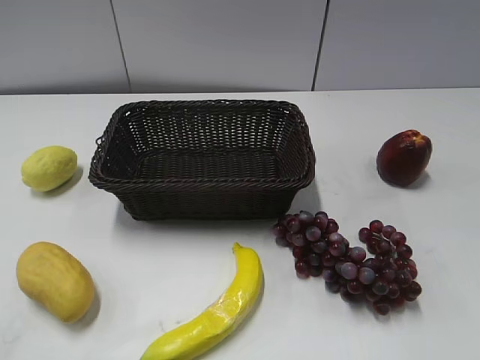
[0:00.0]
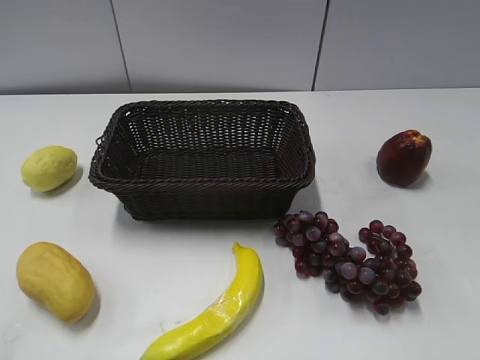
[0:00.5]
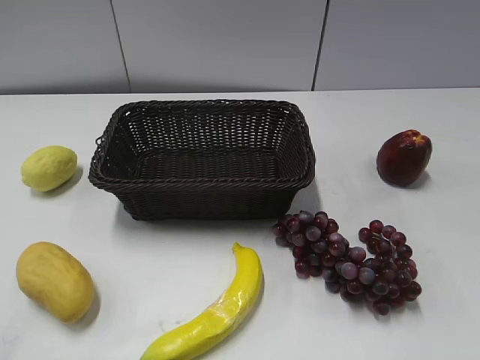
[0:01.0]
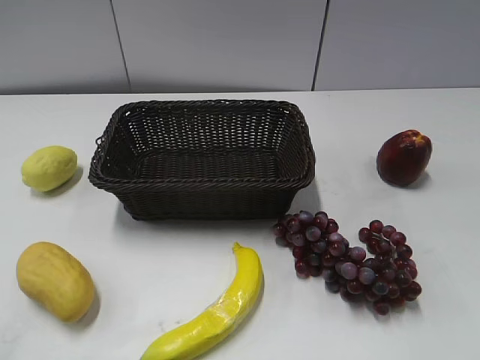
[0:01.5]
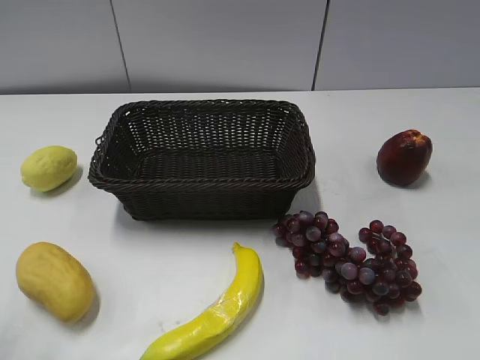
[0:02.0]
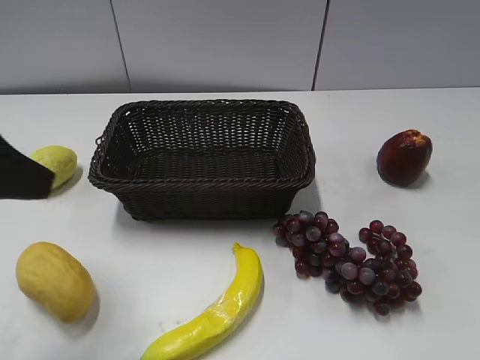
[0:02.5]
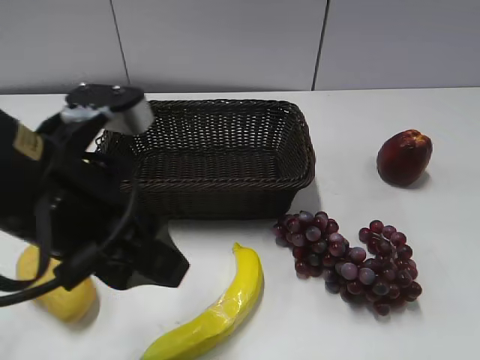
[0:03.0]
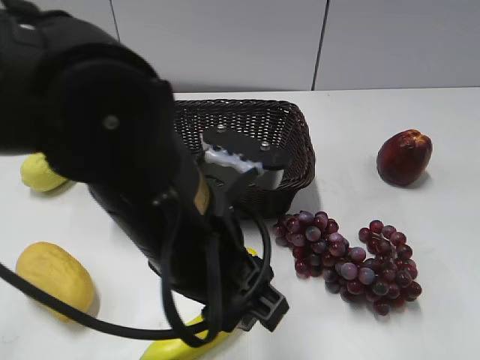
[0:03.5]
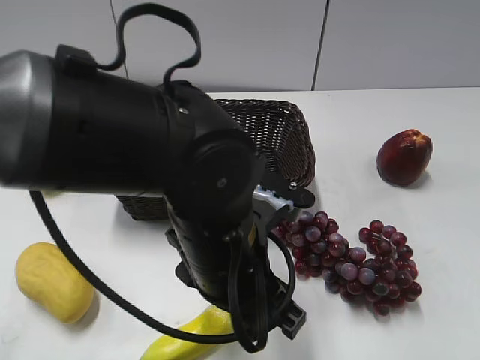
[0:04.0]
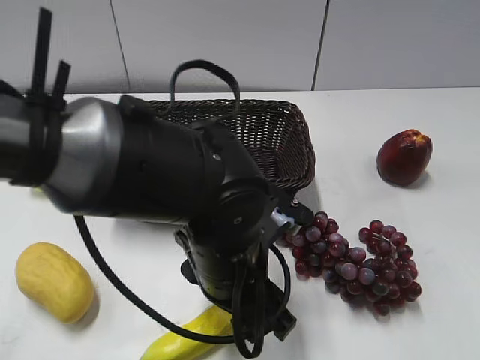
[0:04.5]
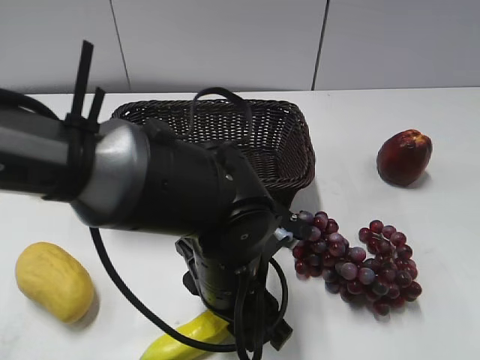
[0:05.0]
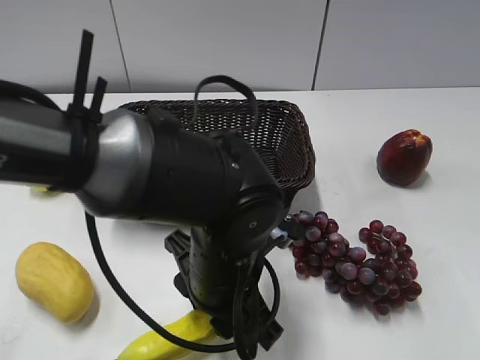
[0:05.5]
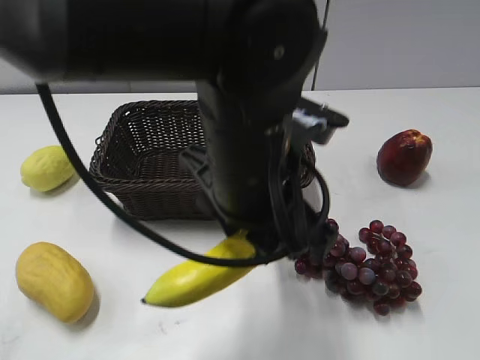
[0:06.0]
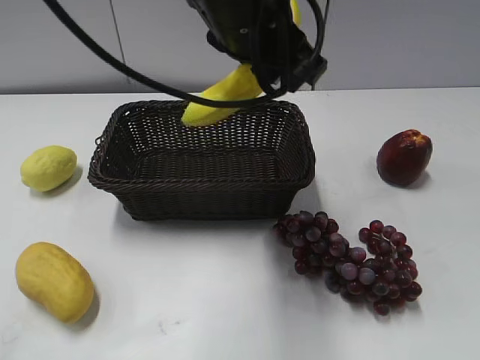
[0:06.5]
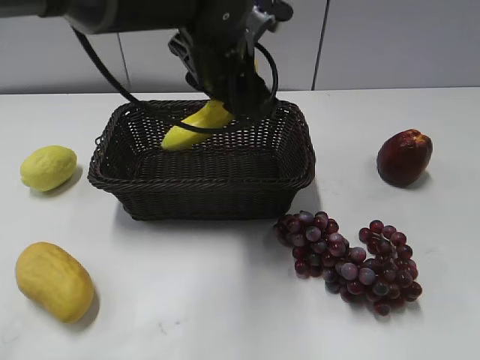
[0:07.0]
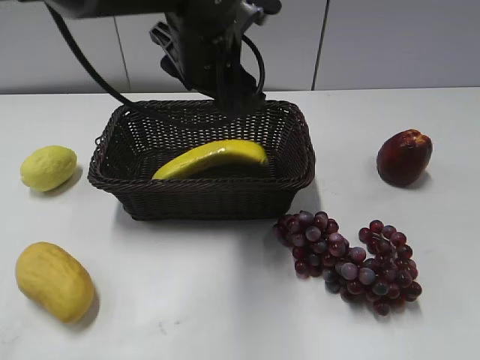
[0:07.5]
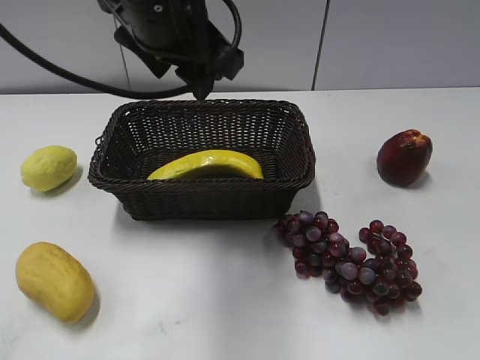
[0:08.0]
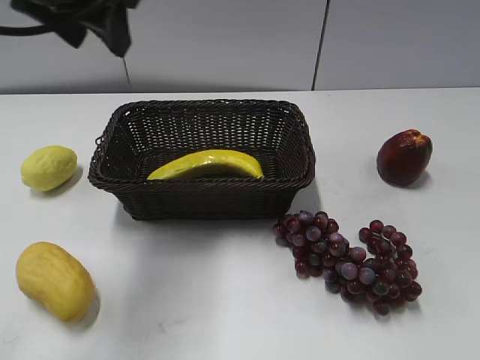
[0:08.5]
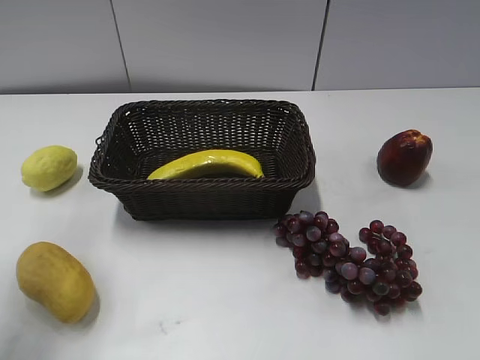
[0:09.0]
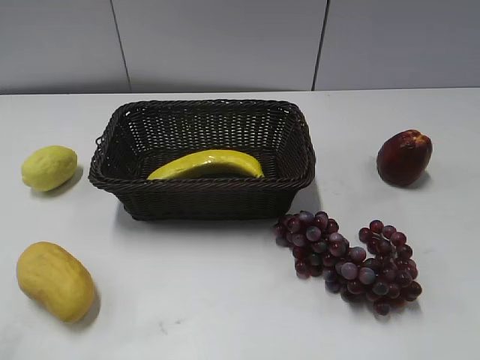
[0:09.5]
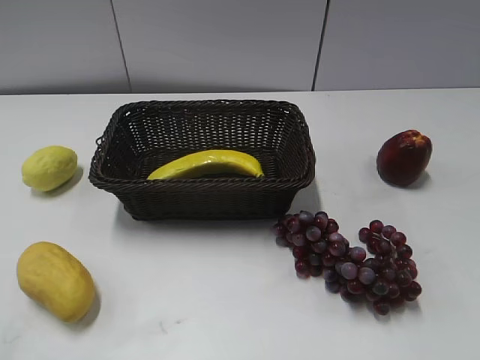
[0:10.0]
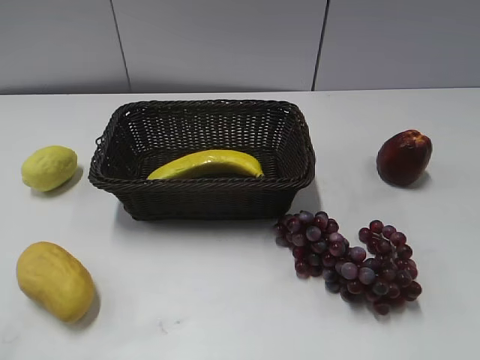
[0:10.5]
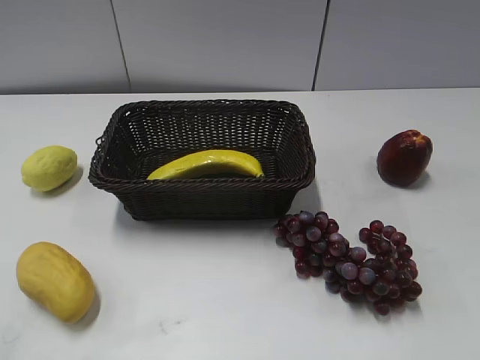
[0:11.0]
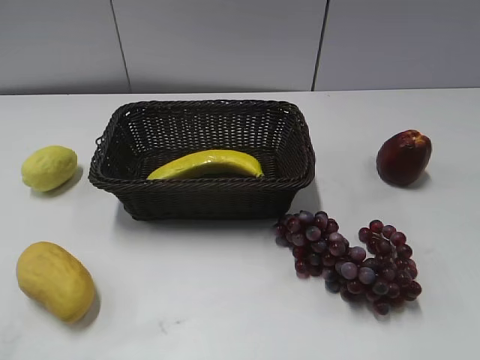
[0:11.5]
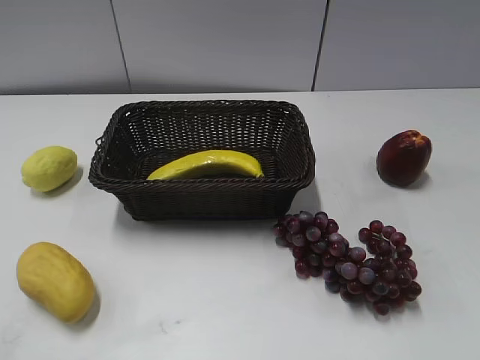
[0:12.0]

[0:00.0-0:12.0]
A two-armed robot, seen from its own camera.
Step, 0:02.5 to 0:05.0: Grasp the banana with left gripper.
Step, 0:05.5 to 0:07.5: Place the banana in the basket with left gripper.
0:02.0 to 0:04.0: The left gripper shifts some 30 cm to the right and downward.
0:04.0 to 0:06.0: The left gripper heads upward, covering approximately 5 cm, and closes its fingers.
0:06.0 to 0:08.0: The left gripper moves forward, upward and to the left, some 15 cm, and opens up.
0:08.0 to 0:10.0: The left gripper heads backward and to the left, covering approximately 40 cm.

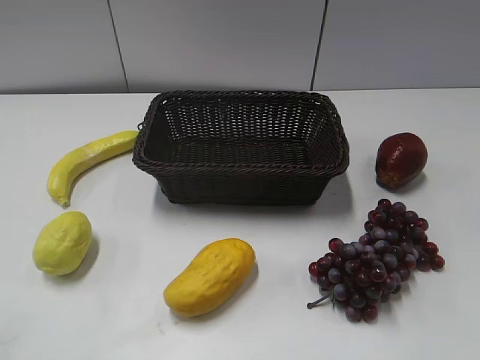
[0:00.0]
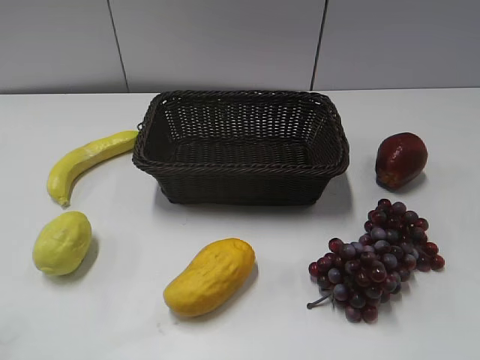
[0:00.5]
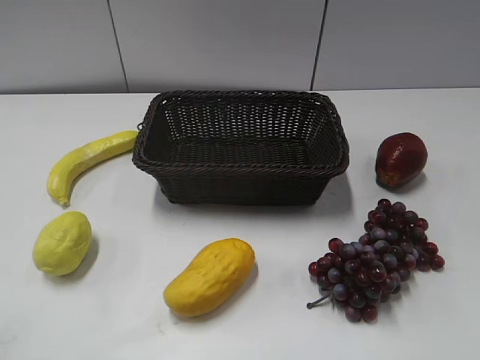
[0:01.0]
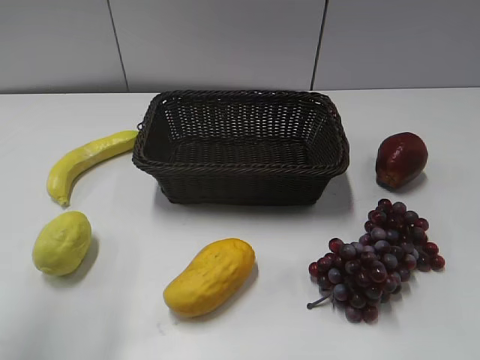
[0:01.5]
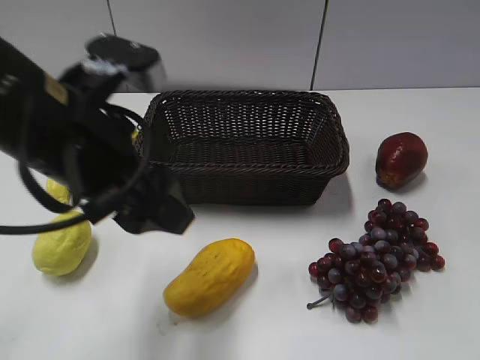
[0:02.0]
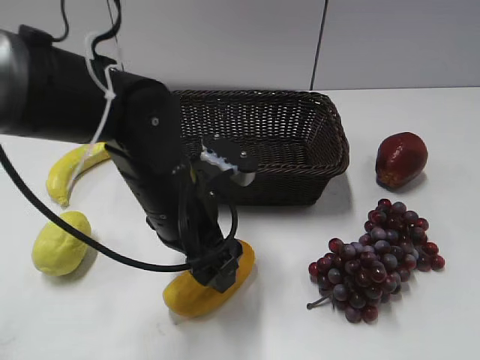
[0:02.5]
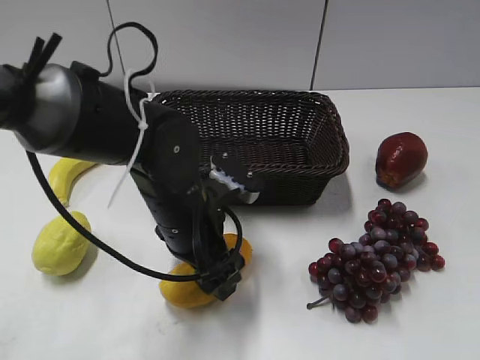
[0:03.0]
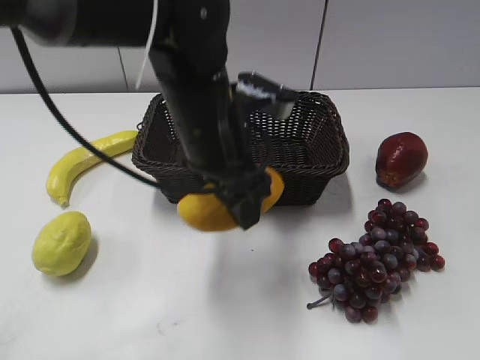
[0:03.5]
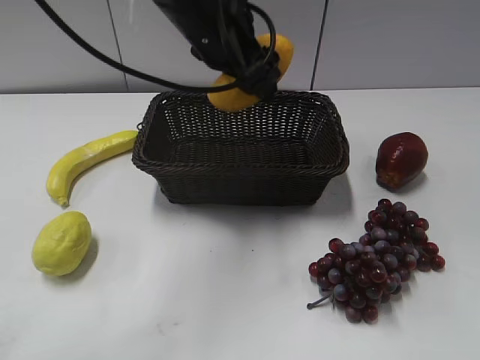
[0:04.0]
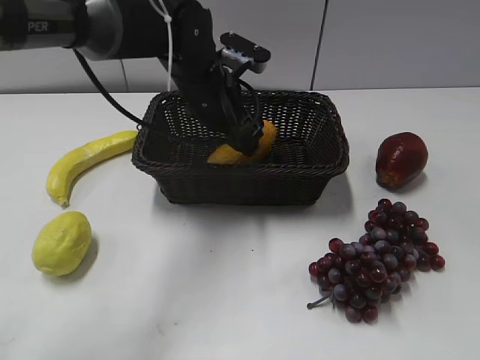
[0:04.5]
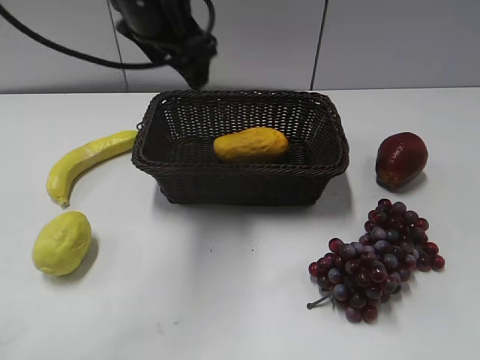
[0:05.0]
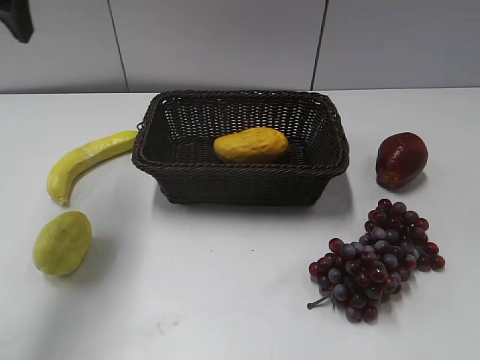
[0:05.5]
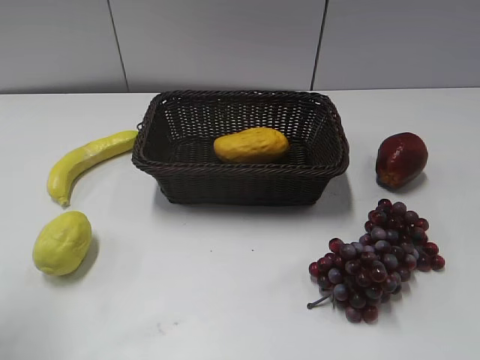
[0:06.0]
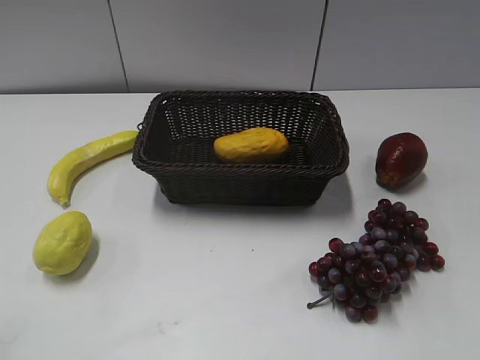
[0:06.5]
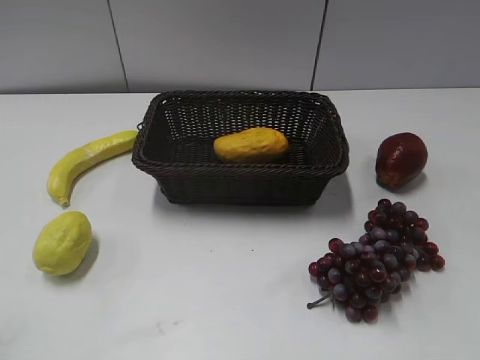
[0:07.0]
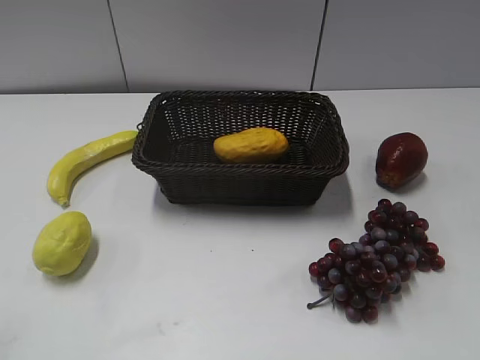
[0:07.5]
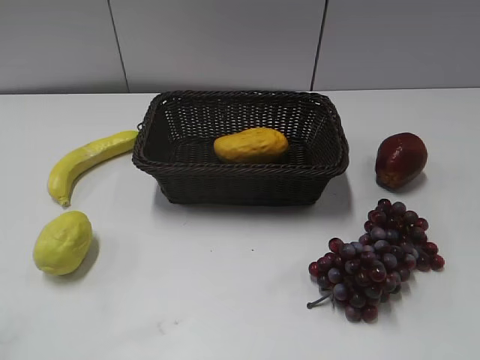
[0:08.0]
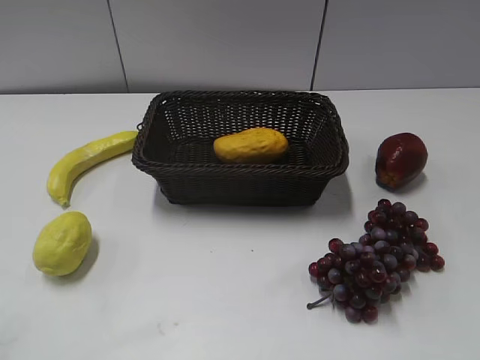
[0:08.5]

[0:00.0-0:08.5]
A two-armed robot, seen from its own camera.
Step, 0:02.0 to 0:03.0: Grasp the mango with left gripper.
Step, 0:03.5 to 0:04.0: Place the mango in the basket with left gripper.
0:02.0 to 0:04.0: The left gripper goes approximately 20 cm forward and to the right, and closes up.
0:04.0 to 0:06.5: The left gripper heads backward and to the left, covering roughly 50 cm, and opens, then closes once more.

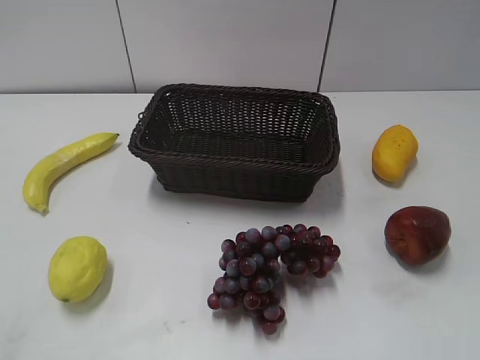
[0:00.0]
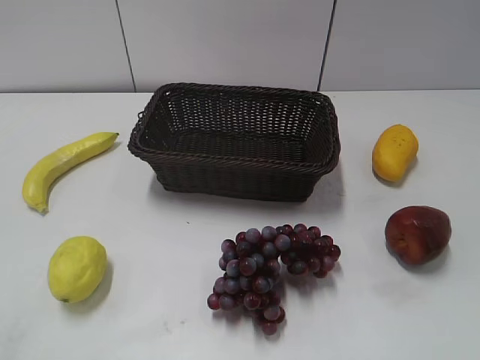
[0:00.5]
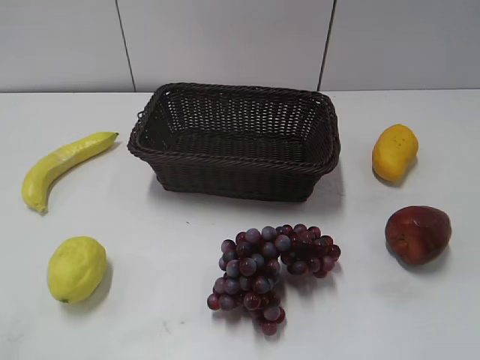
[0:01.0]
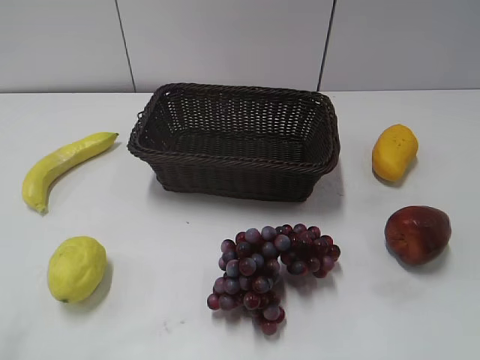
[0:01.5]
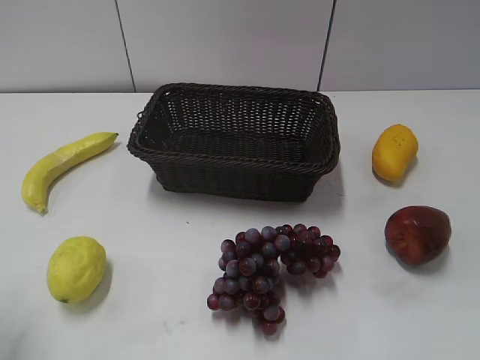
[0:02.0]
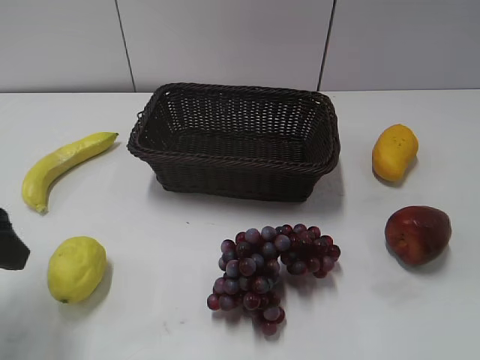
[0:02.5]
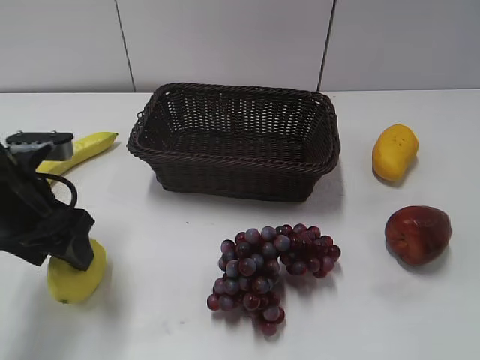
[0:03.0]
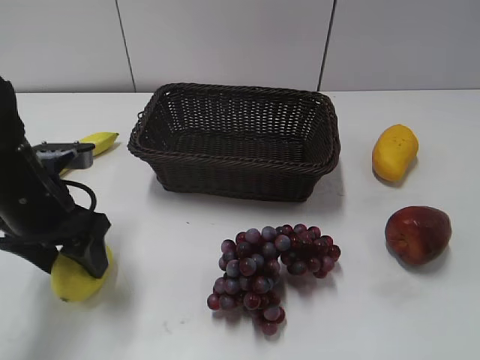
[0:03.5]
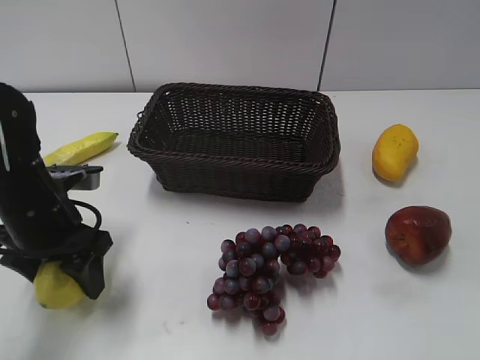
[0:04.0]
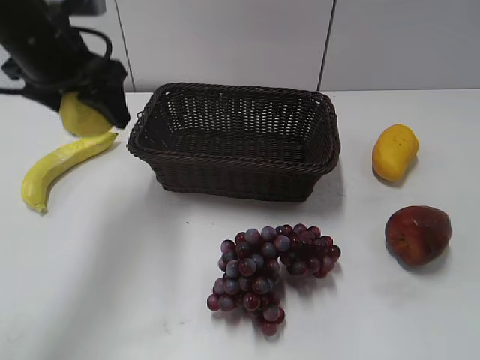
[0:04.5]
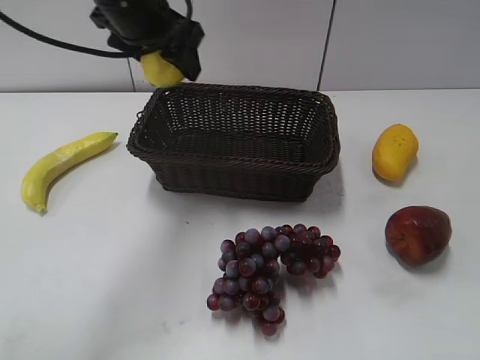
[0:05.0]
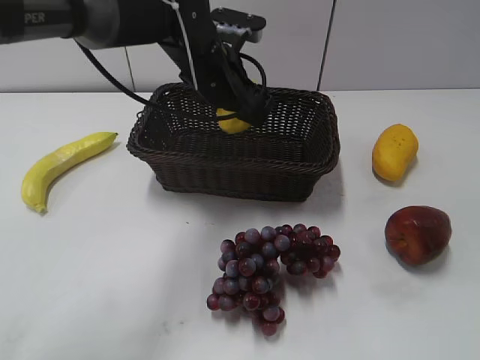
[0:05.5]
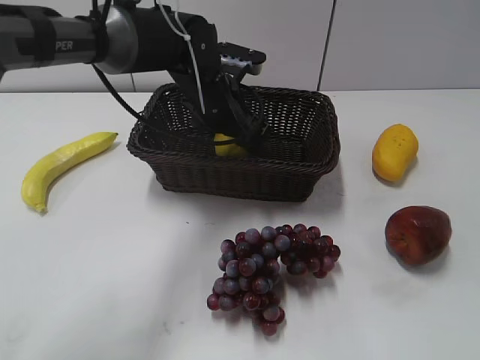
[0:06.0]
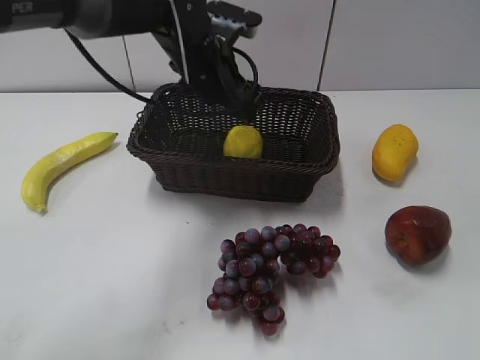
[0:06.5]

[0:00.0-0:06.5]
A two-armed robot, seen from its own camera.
Step, 0:02.5 to 0:03.0: Grasp the lemon with left gripper.
Step, 0:03.5 to 0:06.0: Place the lemon in the basket with left gripper.
0:02.0 to 0:04.5: The left gripper is displaced forward and to the right by roughly 25 cm.
0:04.5 to 0:06.5: The left gripper moves to the right, downward and forward, about 15 cm, and opens.
